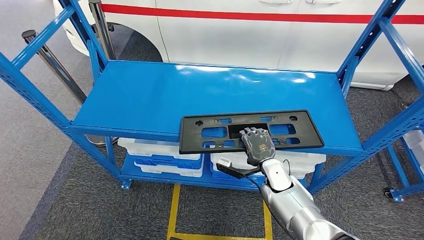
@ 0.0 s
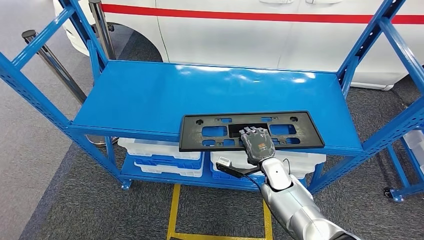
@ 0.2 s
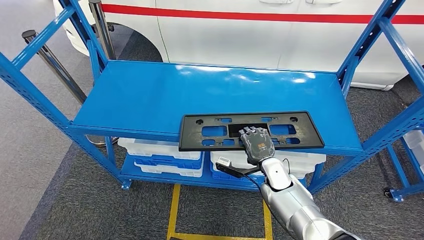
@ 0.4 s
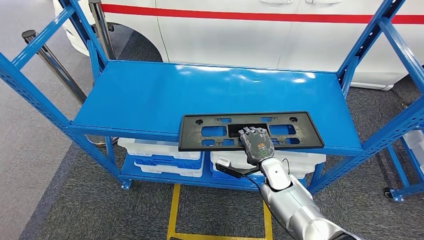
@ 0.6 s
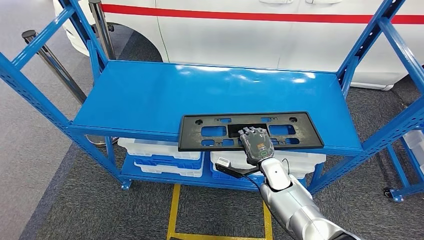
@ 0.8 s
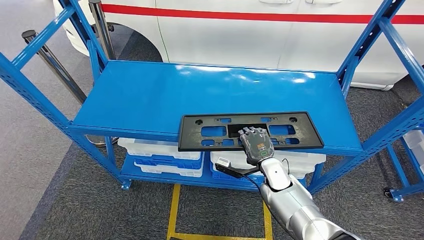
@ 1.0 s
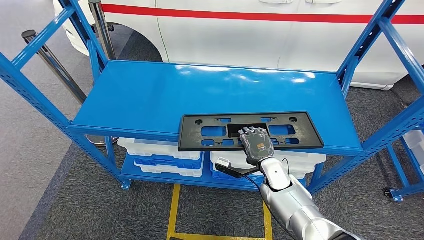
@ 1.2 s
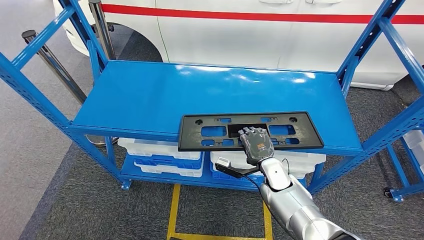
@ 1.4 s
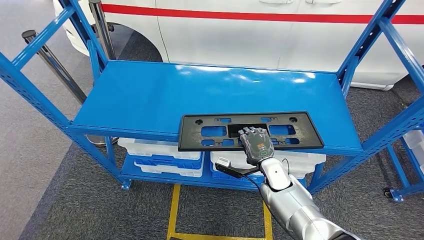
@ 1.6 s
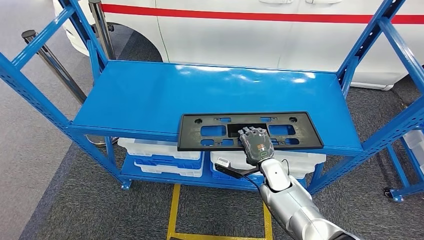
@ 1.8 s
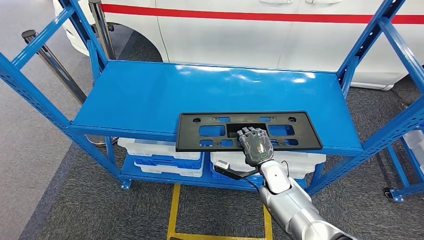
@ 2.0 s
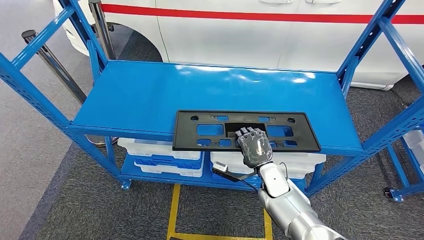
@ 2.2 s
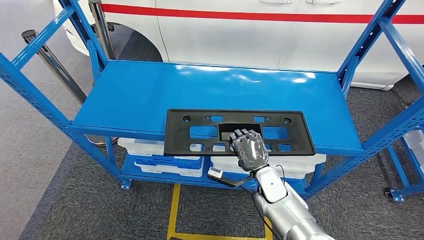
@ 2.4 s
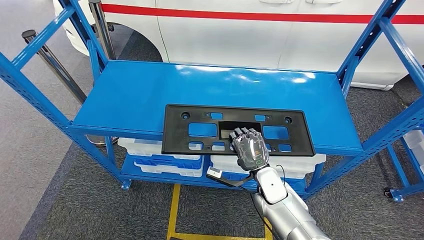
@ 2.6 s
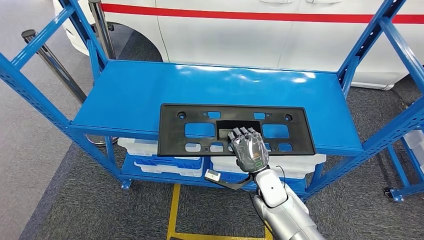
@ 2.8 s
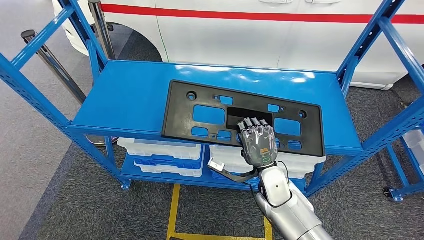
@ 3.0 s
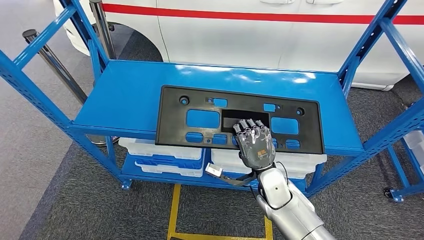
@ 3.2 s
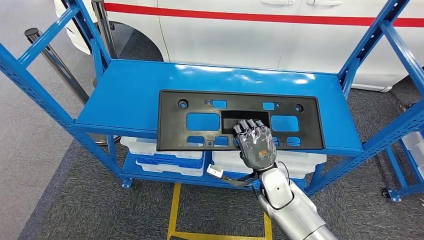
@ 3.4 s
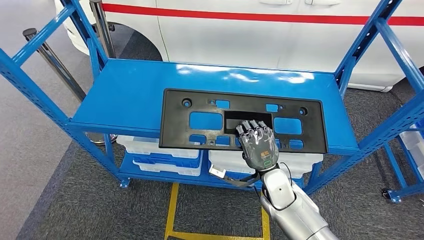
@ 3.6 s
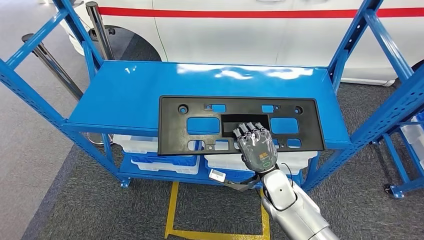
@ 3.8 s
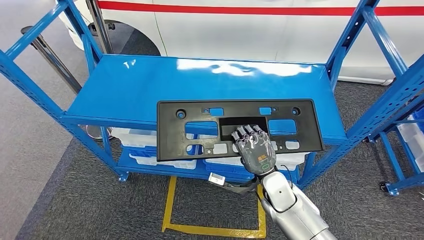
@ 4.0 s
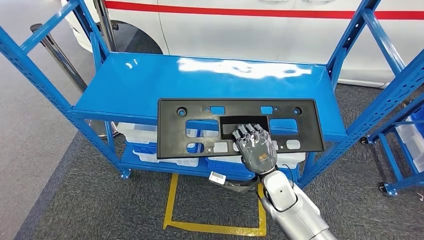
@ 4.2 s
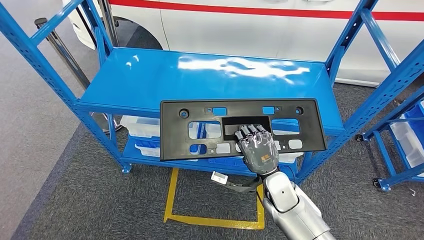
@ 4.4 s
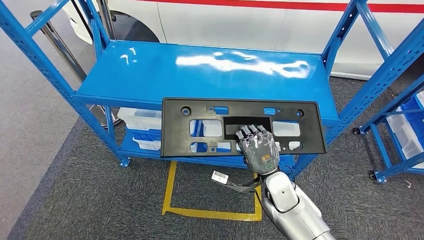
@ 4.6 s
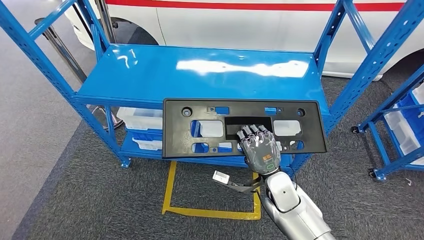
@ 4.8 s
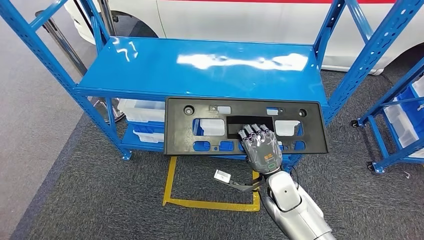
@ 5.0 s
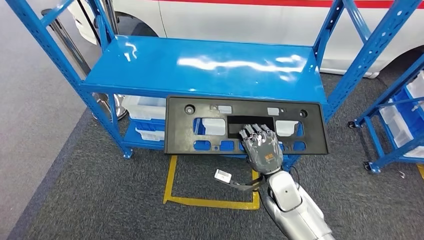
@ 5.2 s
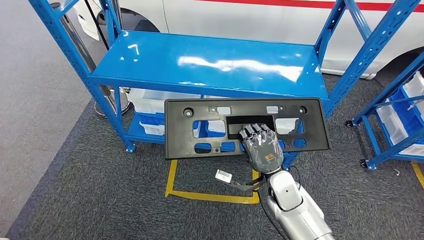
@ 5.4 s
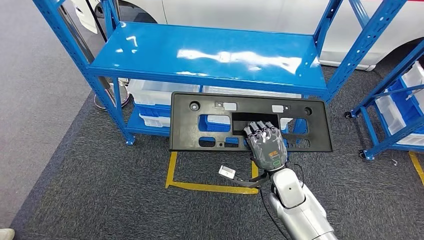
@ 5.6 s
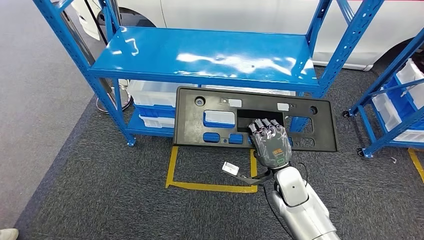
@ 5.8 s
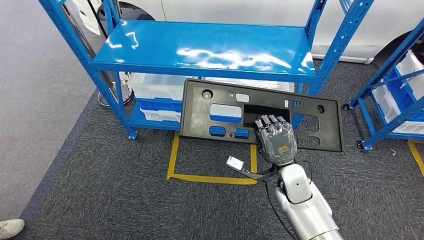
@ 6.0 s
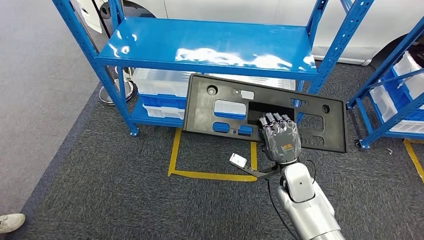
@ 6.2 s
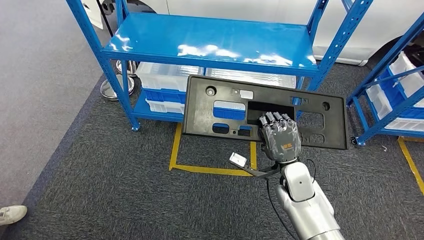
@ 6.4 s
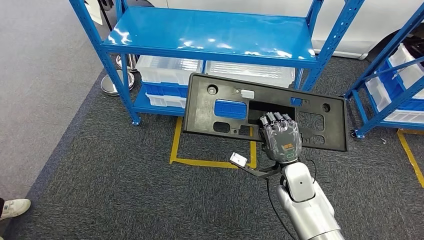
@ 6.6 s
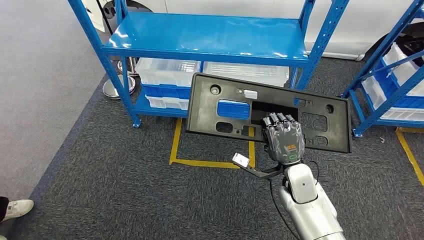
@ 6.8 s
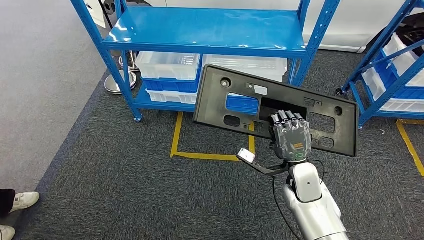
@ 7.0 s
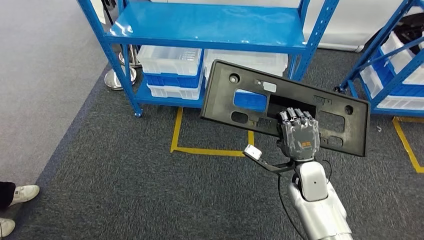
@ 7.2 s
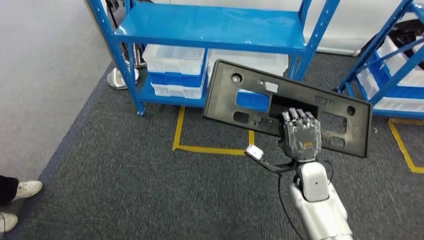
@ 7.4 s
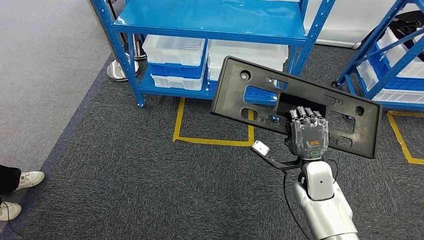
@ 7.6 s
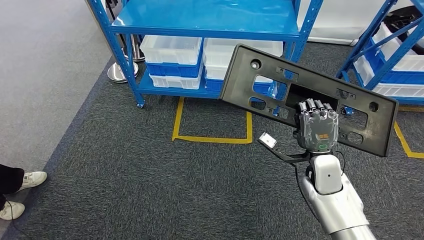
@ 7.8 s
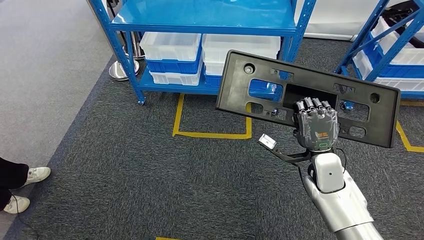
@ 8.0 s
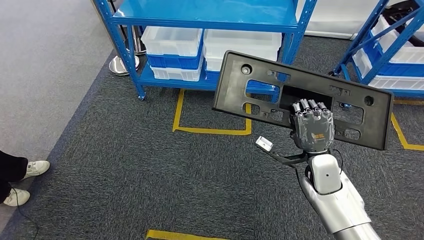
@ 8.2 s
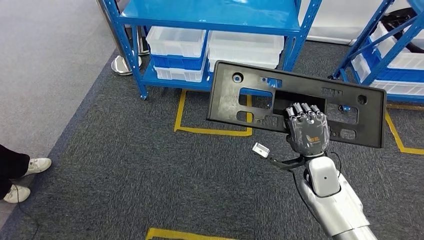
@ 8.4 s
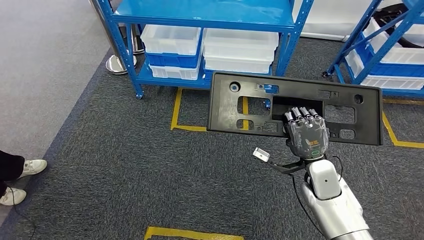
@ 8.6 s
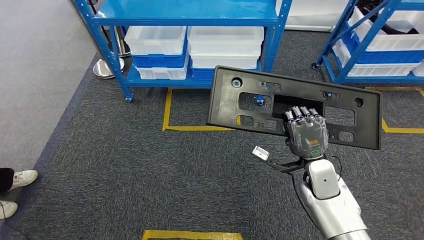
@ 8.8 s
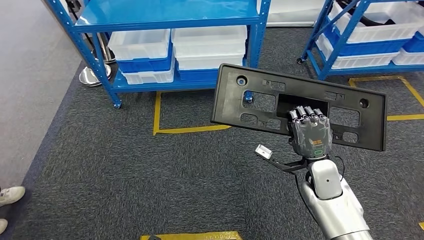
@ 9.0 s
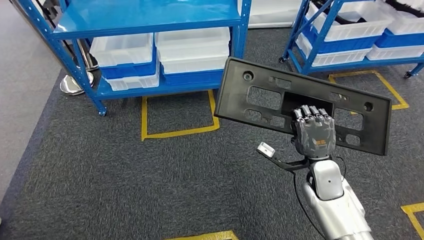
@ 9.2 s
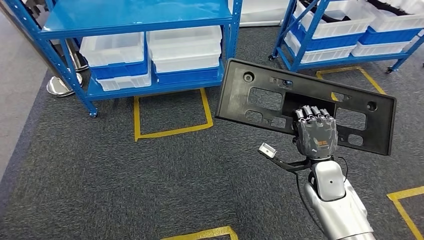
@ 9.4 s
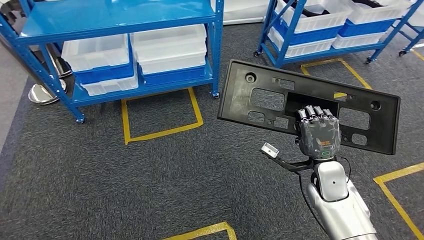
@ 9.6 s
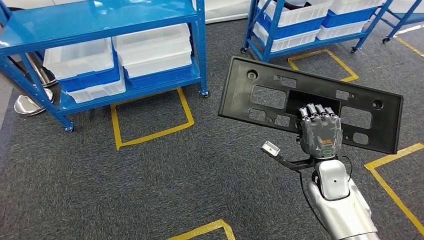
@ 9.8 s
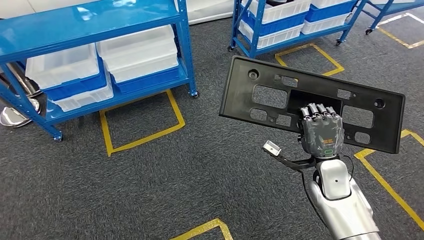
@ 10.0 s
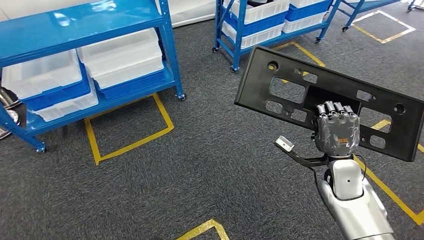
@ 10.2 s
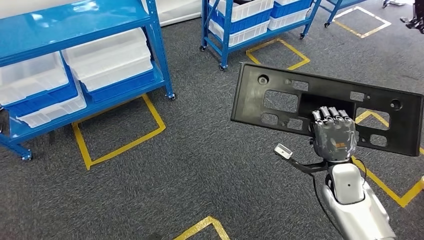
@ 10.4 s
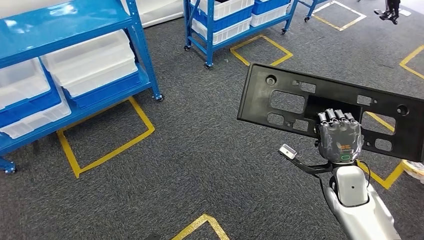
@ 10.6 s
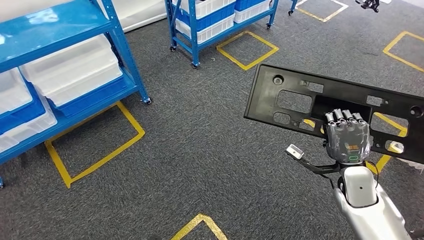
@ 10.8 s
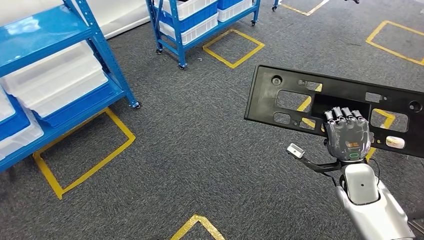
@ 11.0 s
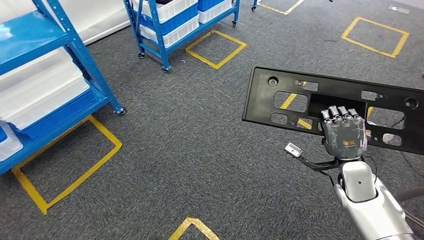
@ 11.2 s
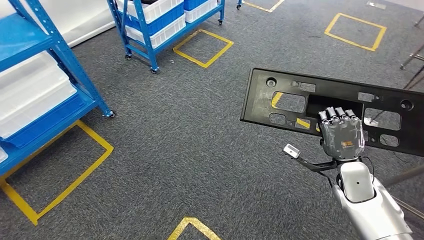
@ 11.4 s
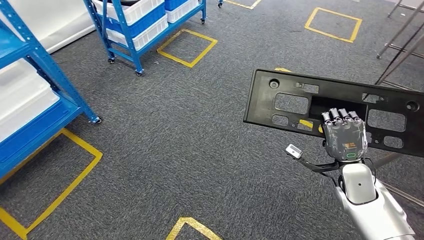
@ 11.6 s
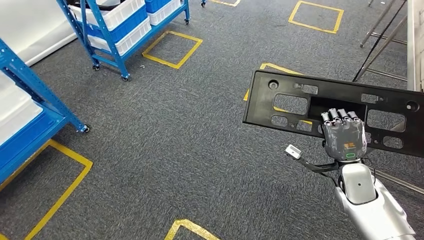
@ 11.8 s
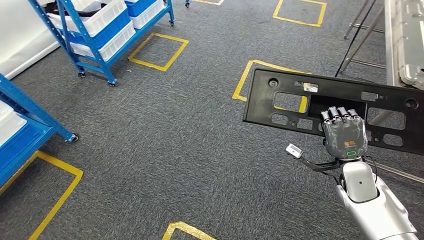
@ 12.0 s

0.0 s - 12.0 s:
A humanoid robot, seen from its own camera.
Step, 0.0 s - 3.4 s: Pick up the large material from the shelf.
0.0 s - 1.6 s: Both hands stay put.
1.6 s - 3.0 s: The right hand changes place by some 5 cm.

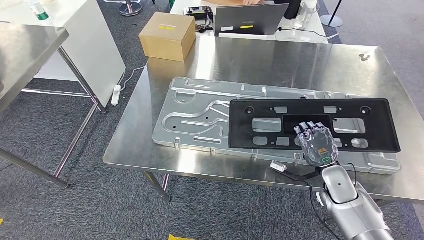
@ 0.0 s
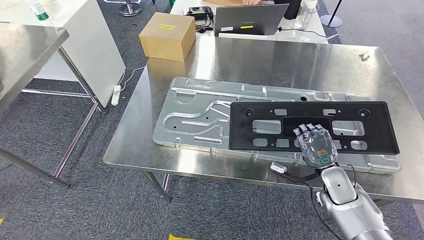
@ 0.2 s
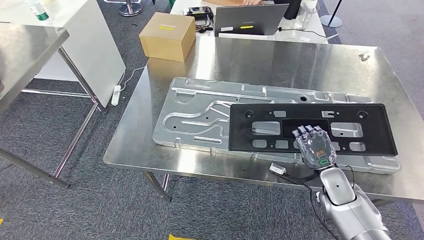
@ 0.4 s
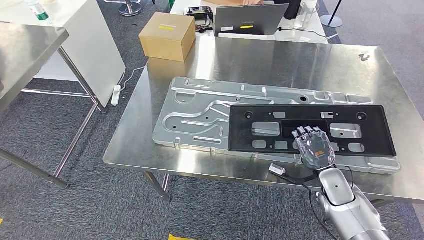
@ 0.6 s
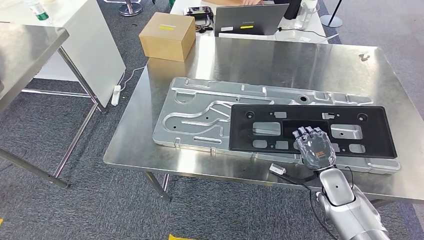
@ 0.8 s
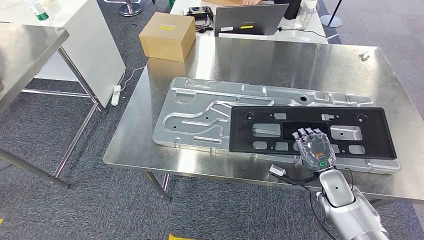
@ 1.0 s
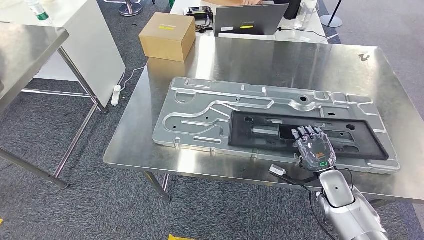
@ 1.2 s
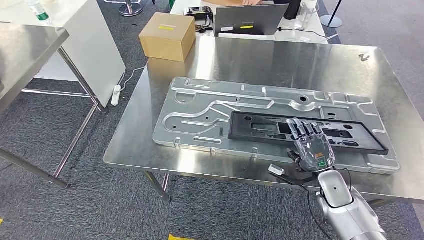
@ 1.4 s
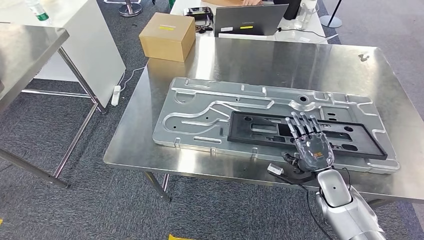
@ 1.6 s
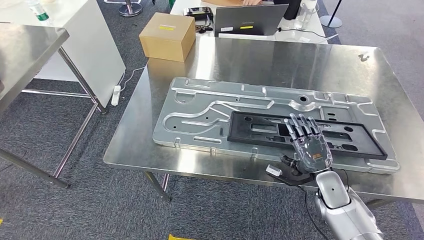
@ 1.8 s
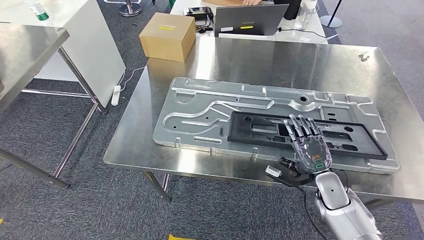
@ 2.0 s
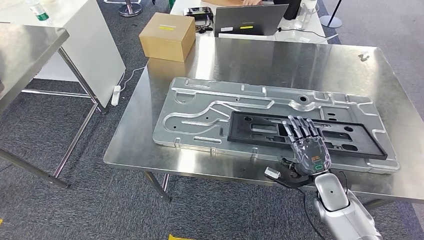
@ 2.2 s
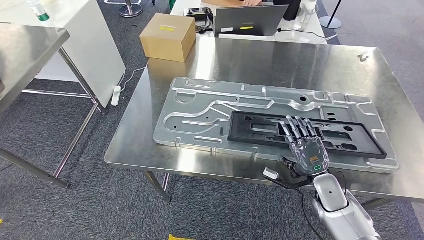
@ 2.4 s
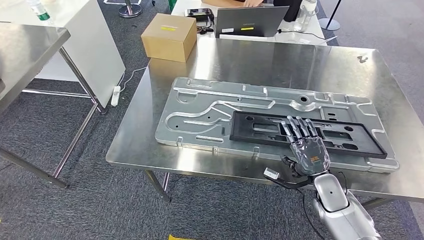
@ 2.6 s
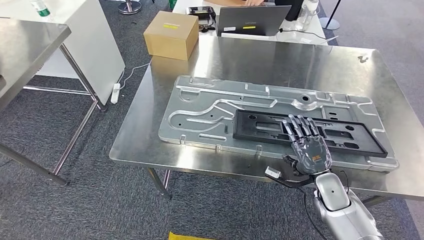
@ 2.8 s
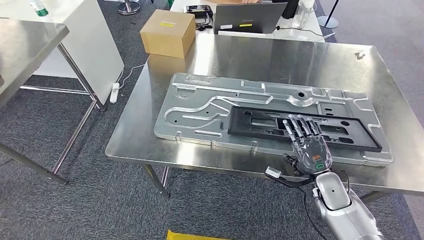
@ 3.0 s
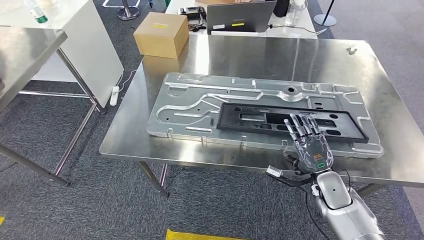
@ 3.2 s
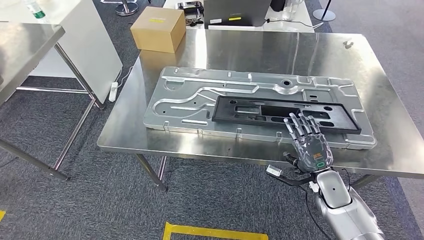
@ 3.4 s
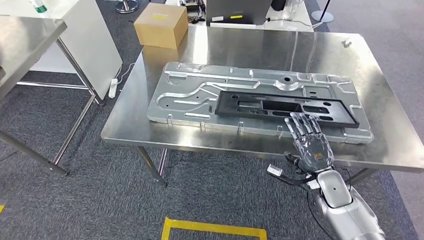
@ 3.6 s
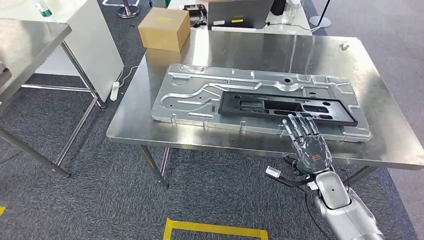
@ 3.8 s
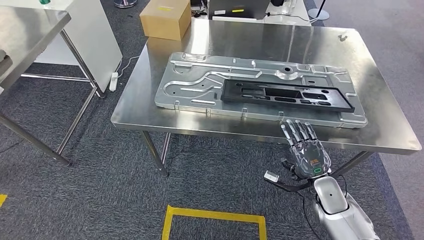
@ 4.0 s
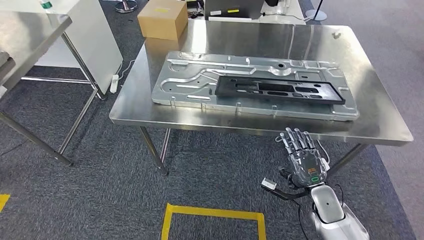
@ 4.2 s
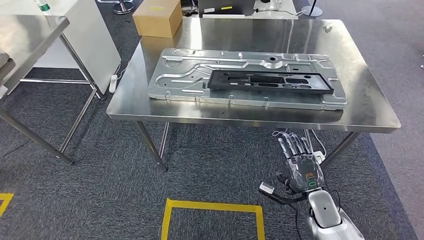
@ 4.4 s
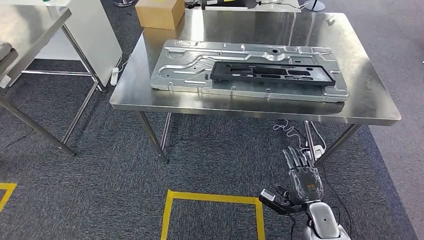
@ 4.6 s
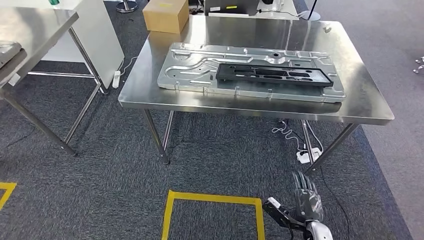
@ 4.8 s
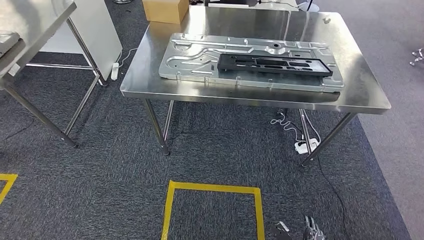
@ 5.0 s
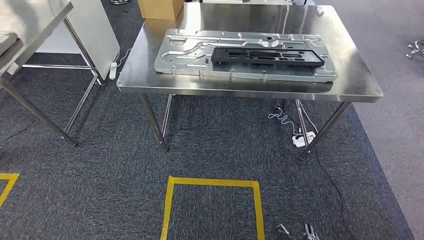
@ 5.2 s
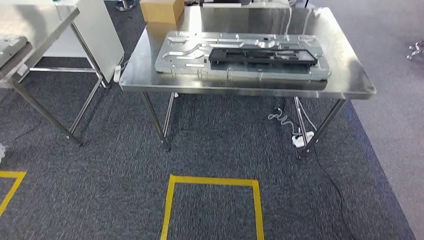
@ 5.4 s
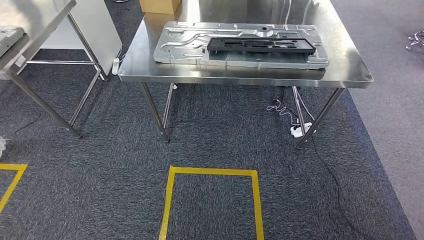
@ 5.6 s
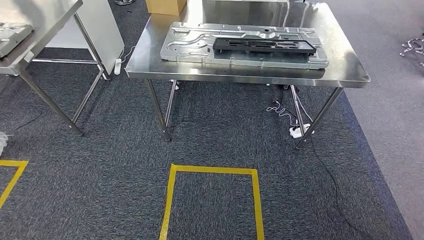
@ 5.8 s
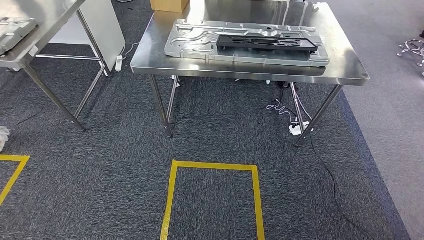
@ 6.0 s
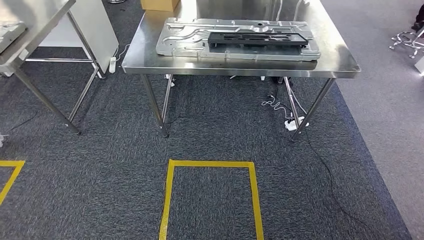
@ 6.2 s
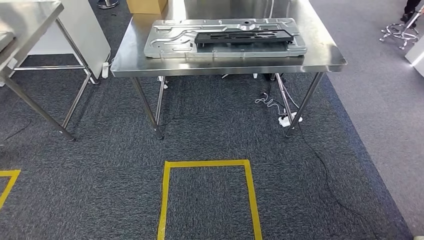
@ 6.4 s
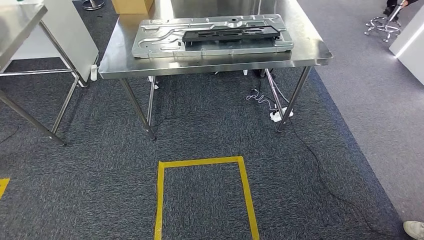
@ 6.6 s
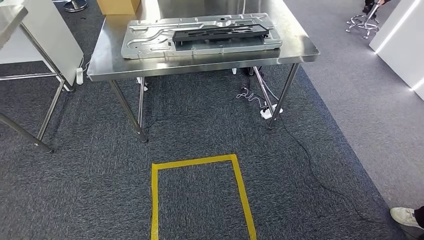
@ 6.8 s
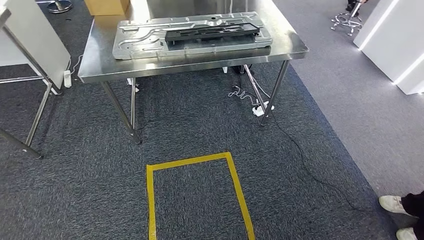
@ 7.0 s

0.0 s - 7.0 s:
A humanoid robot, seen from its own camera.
Step, 0.0 s - 3.2 s: Insert the large material into the corresponding slot on the workbench.
0.0 s - 2.8 s: The hands move only a little.
